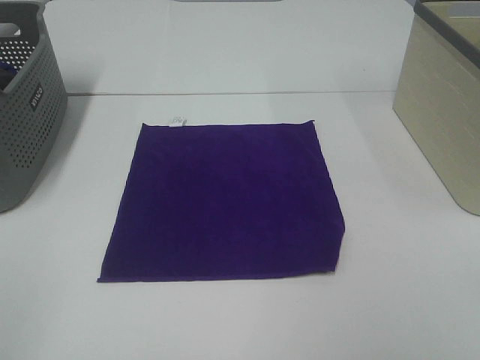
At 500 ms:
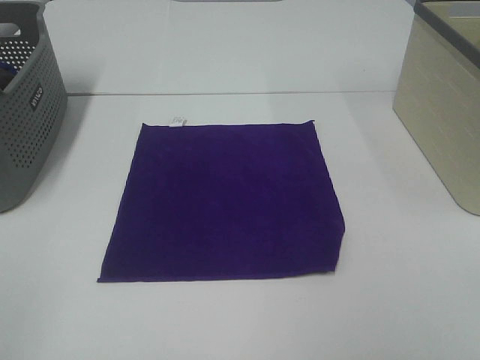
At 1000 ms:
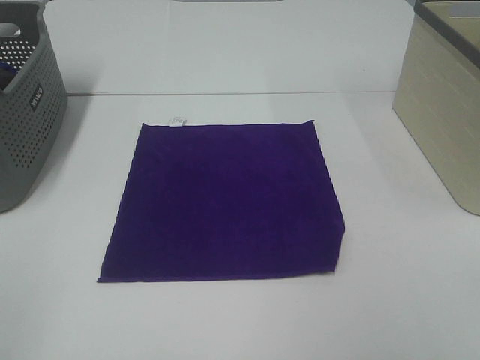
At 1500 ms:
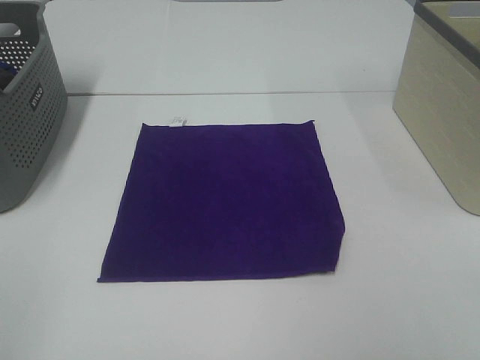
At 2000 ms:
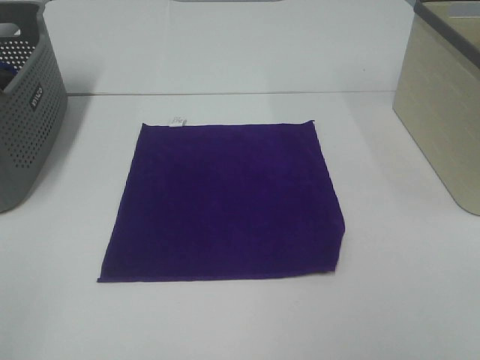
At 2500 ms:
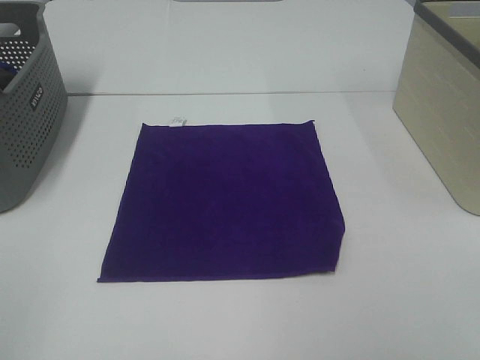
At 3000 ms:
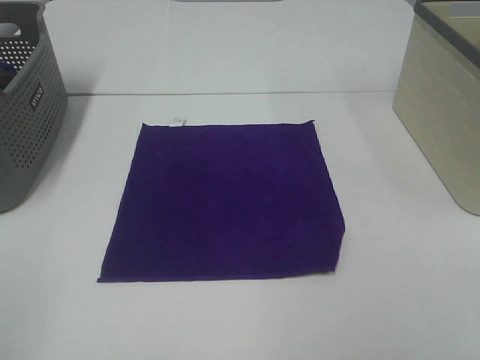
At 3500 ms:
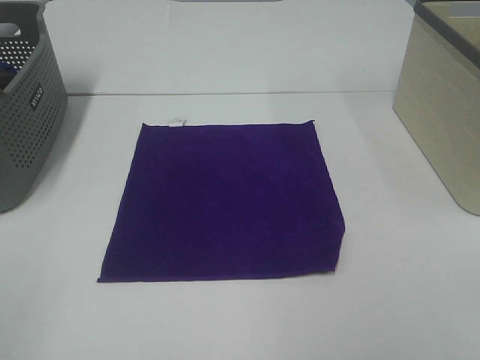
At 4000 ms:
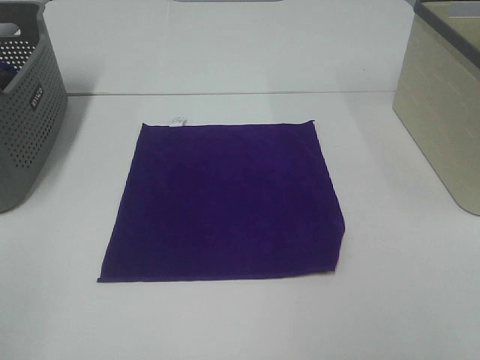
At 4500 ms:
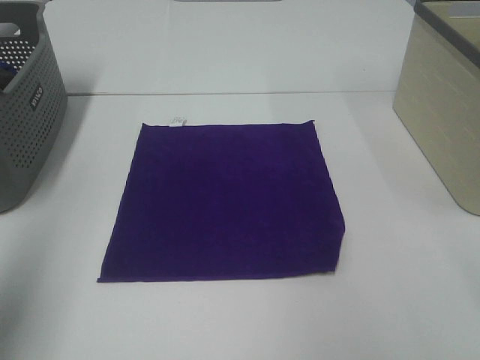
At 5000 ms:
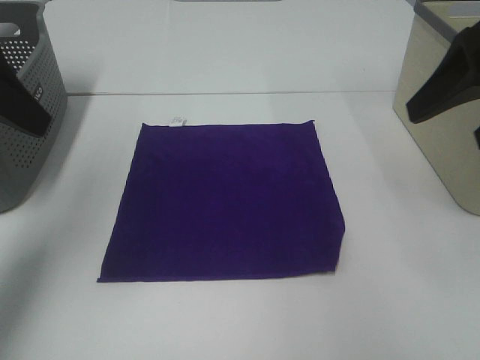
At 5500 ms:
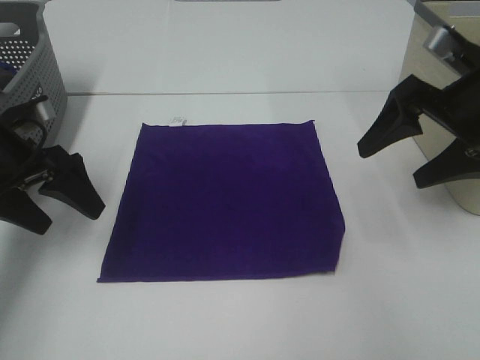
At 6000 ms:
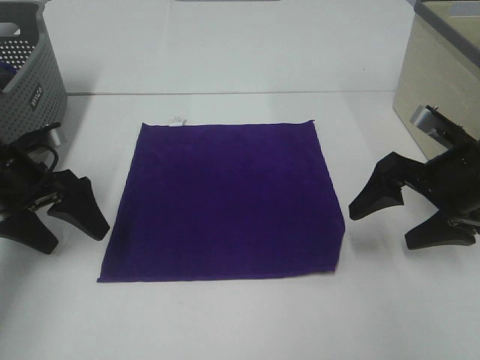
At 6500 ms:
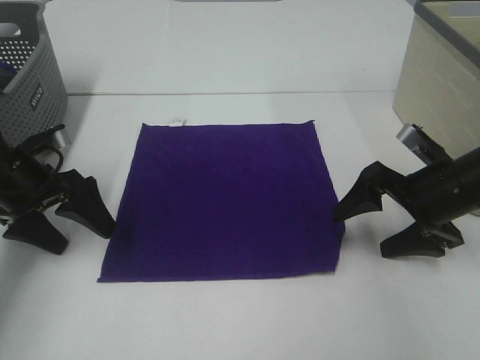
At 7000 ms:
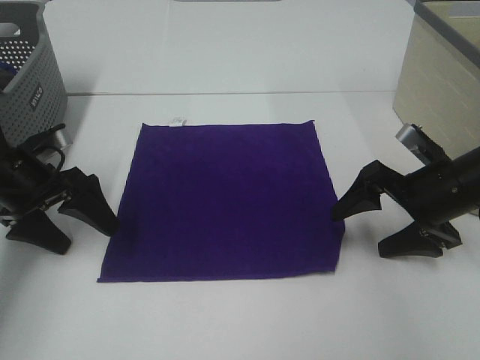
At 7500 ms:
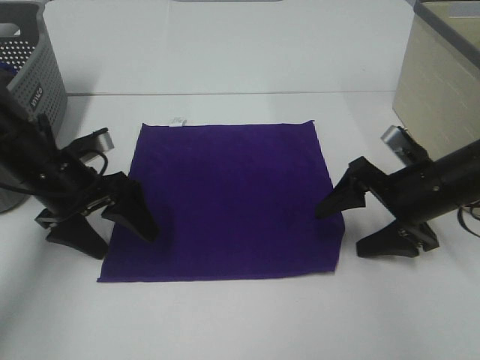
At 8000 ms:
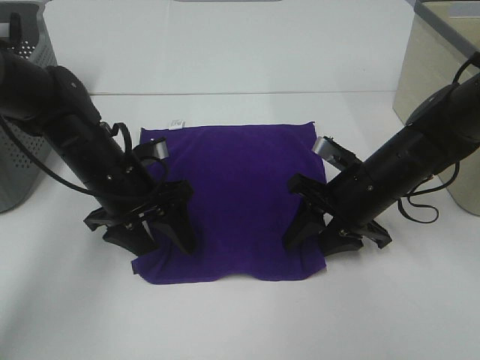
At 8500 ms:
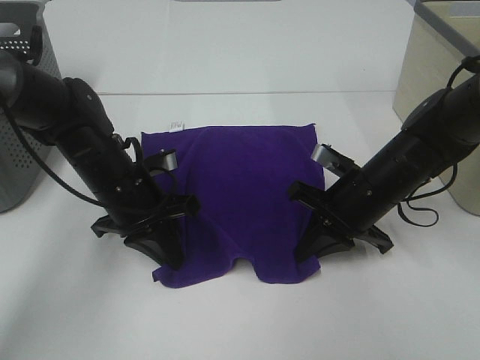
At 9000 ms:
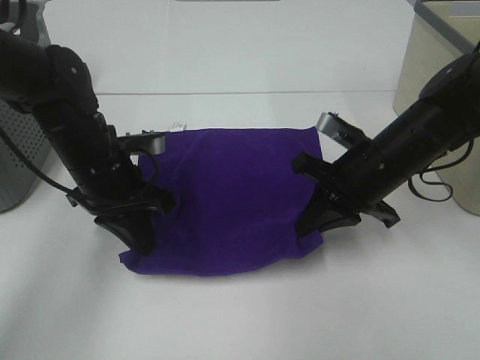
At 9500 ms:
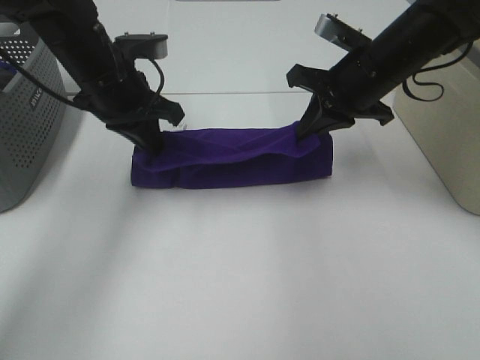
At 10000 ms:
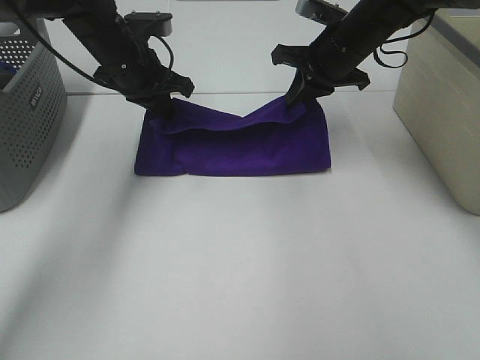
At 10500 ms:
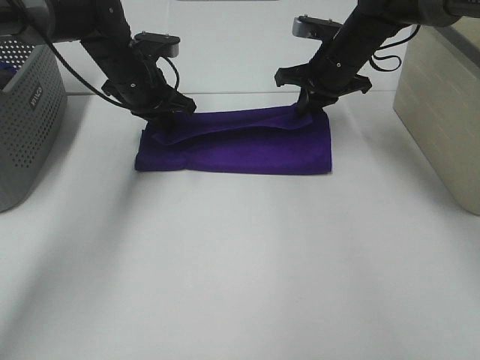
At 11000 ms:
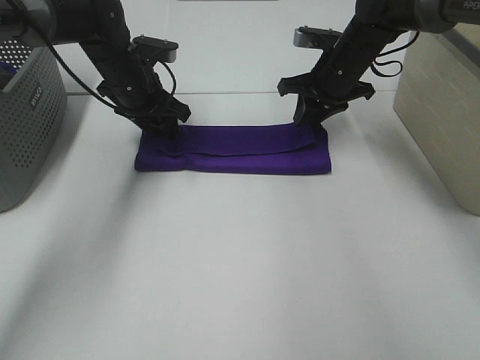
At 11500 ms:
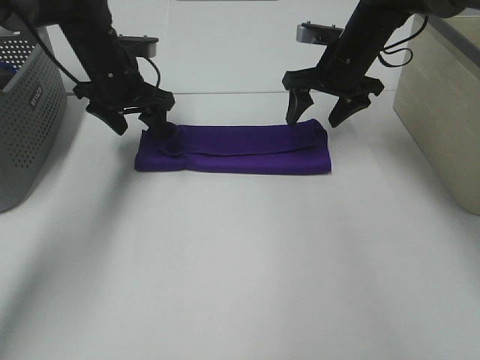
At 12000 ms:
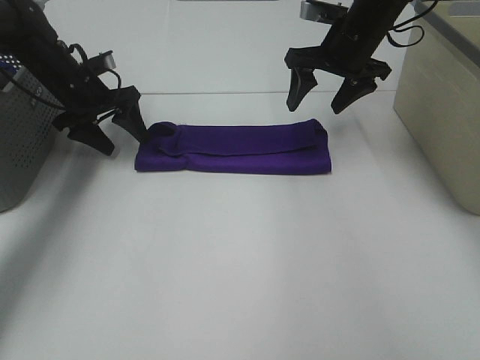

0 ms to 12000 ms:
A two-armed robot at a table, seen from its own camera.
Task of the whole recording: Fold towels.
Step, 0 ms to 8500 ms: Left hand: grab the bottom left corner of purple towel.
Step, 0 ms to 8500 ms: Right hand: grab the bottom right corner of purple towel.
Step, 9000 ms to 11000 ms: Left hand: fold the purple towel up.
Step, 9000 ms to 11000 ms: Right hand: fold the purple towel up.
0 ms to 2000 ms: Neither gripper changes place.
4000 ms to 6000 ms: The two grippers go about 35 cm forward and downward.
6000 ms to 8000 ms: The right gripper shifts about 10 cm to the left and downward, and closes its fingers, while the left gripper shifts some 15 cm to the right, and closes its fingers.
8000 ms to 10000 ms: The grippers both shift forward and upward by about 20 cm. The left gripper closes its fingers. Meanwhile the right gripper closes up.
10000 ms to 12000 ms: The right gripper opens up. The left gripper travels to the left and downward by about 10 cm, and opens its fingers.

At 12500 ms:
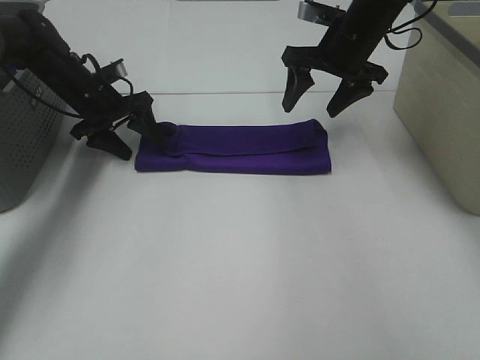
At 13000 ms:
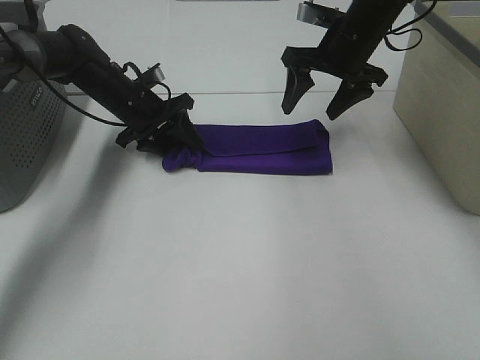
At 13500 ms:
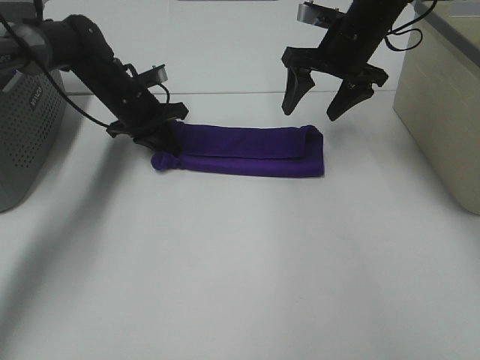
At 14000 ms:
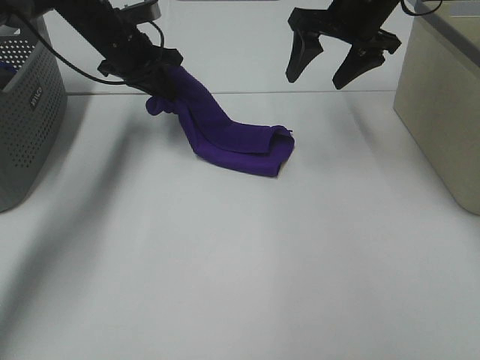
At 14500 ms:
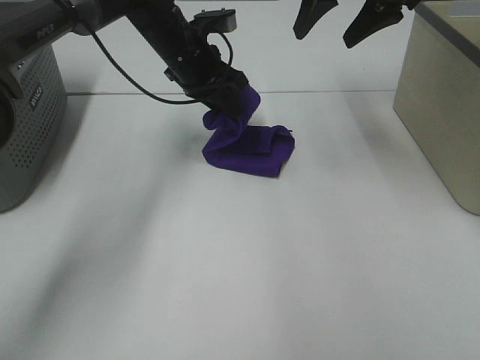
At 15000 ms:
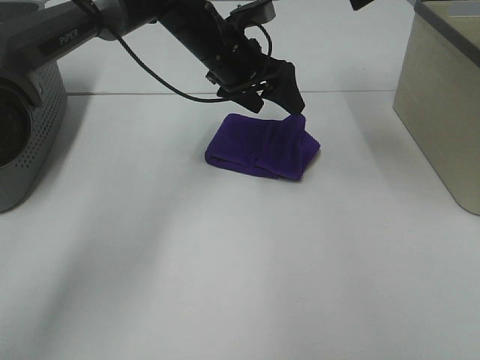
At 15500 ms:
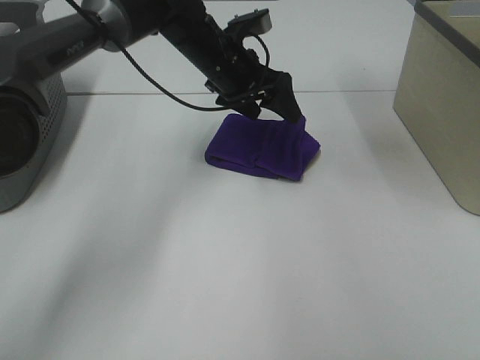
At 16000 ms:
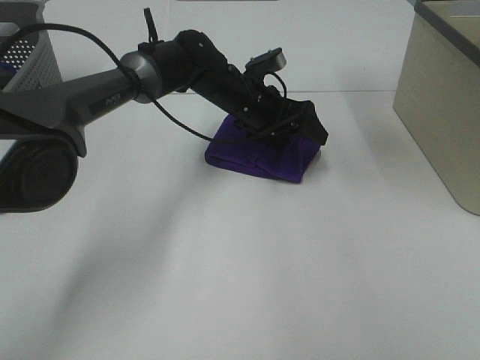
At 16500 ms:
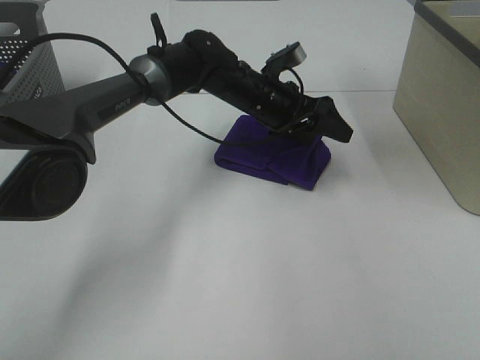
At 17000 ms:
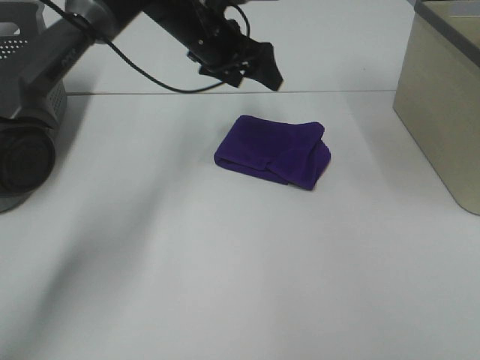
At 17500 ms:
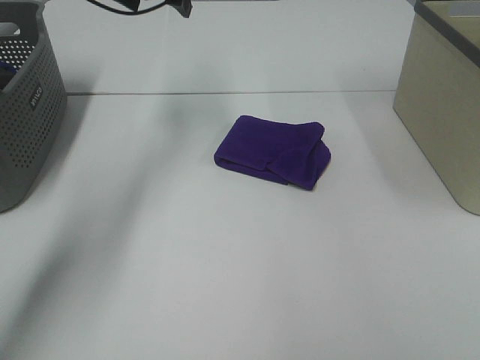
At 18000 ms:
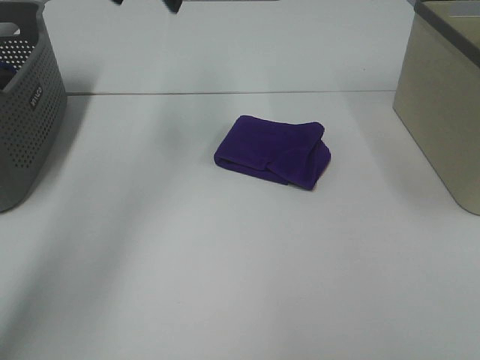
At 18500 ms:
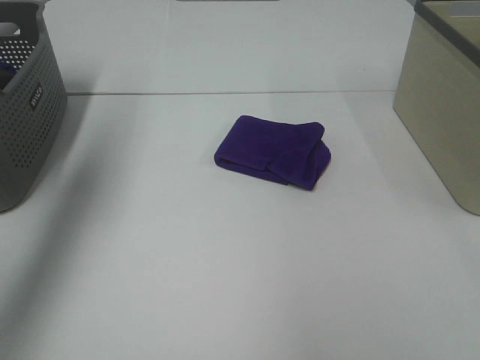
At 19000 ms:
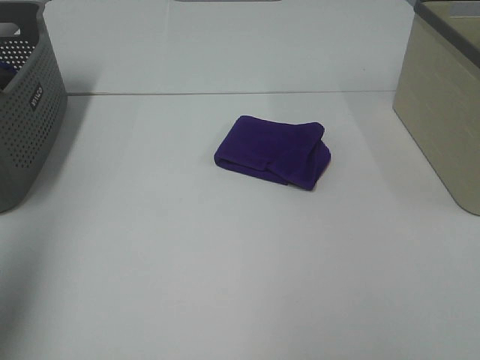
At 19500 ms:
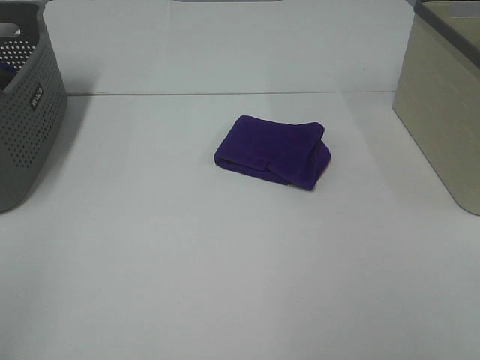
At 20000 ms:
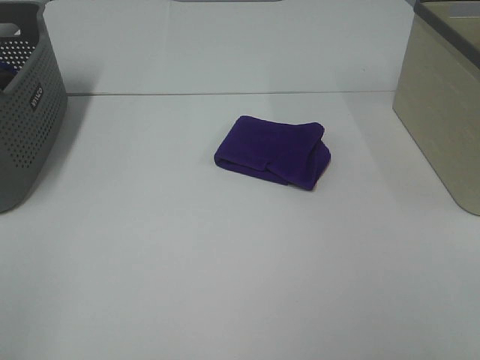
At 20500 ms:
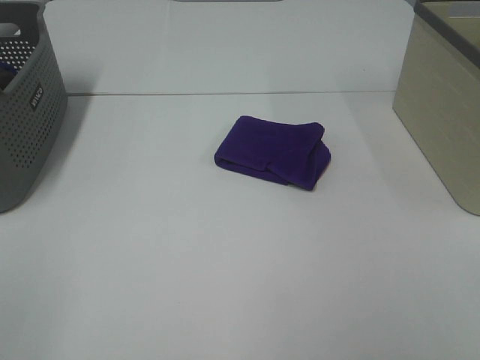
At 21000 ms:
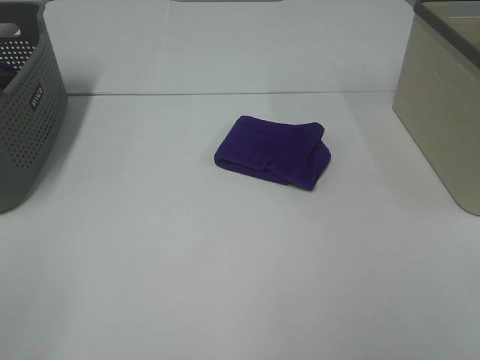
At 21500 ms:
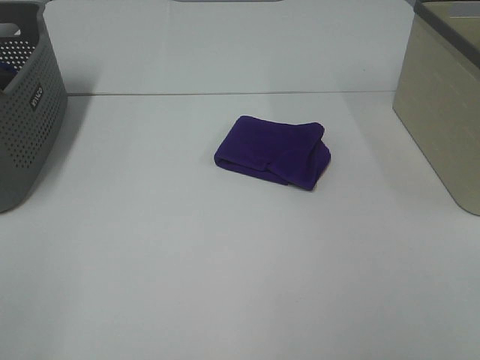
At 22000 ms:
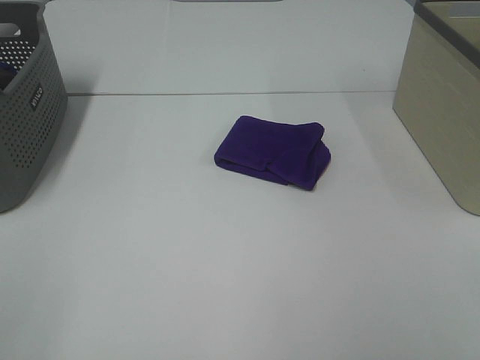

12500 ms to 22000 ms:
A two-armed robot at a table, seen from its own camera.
Task of the whole recording: Fold towels.
Step, 12500 ms to 14500 ms: Left hand: fold the purple towel from left to right.
Step, 15000 ms to 16000 ms: Left hand: adjust the purple towel.
12500 ms to 14500 ms: The left gripper heads to the right and upward, covering some 15 cm, and closes up, while the right gripper travels upward by about 10 cm.
14500 ms to 16500 ms: The right gripper shifts roughly 5 cm upward. Meanwhile the left gripper shifts about 10 cm to the right and downward, and opens up.
16500 ms to 18000 ms: The left gripper goes roughly 25 cm upward and to the left; the right gripper goes roughly 10 cm backward and upward.
18000 ms to 20000 ms: The right gripper is displaced backward and downward by some 35 cm. The left gripper heads backward, covering about 50 cm.

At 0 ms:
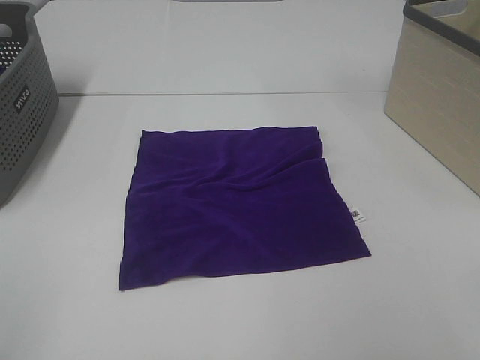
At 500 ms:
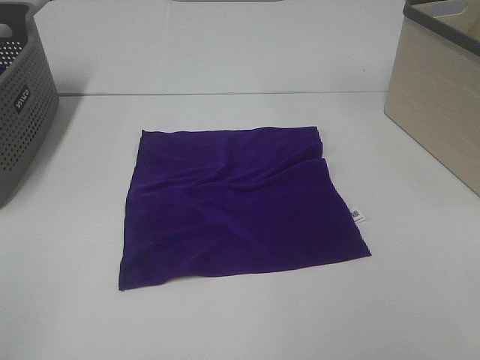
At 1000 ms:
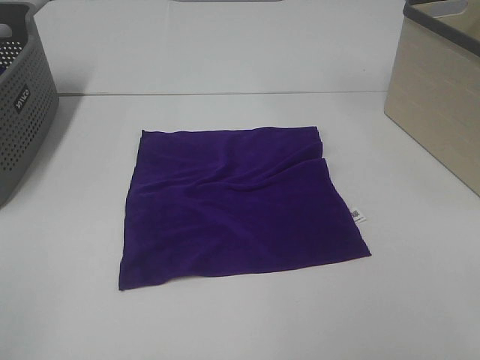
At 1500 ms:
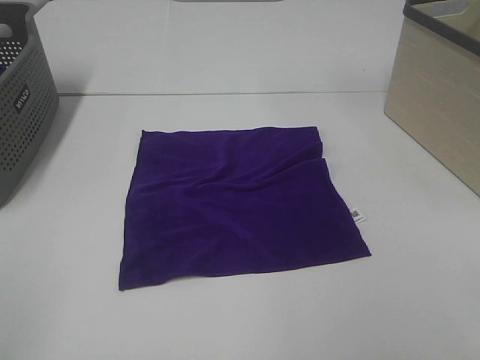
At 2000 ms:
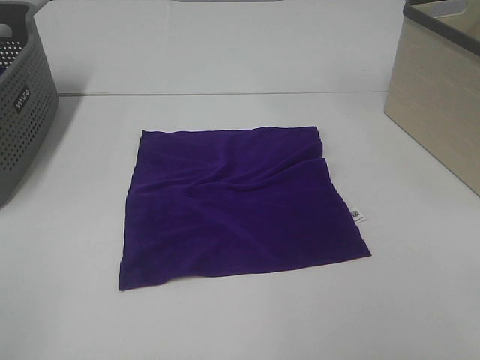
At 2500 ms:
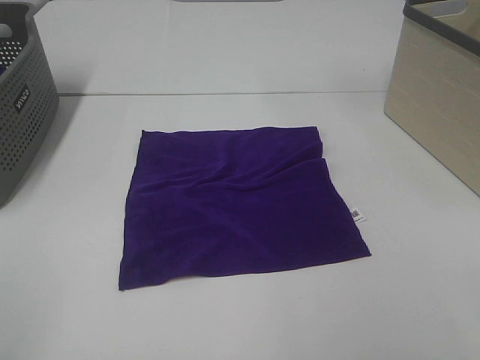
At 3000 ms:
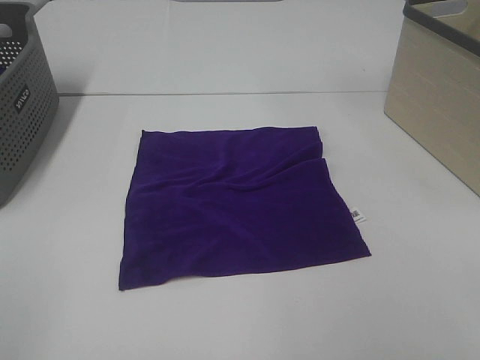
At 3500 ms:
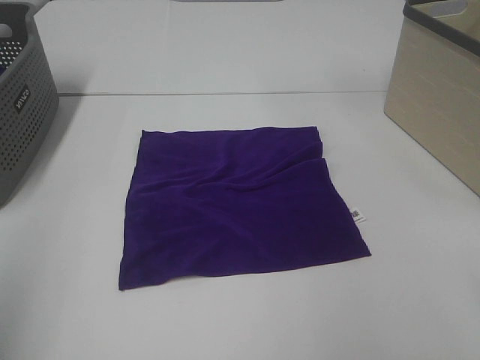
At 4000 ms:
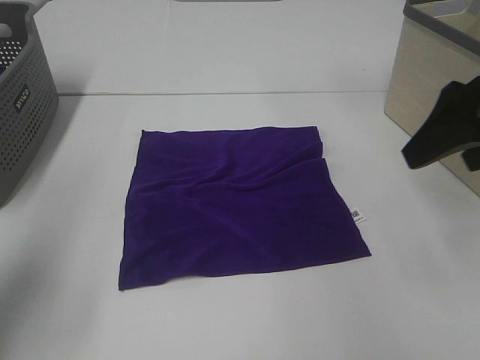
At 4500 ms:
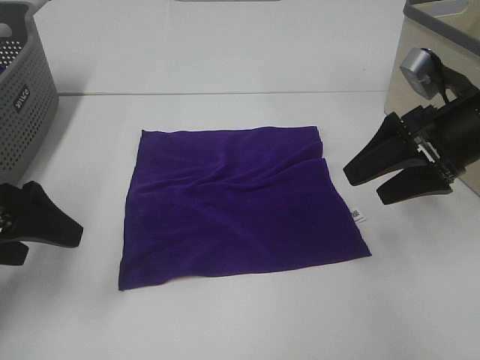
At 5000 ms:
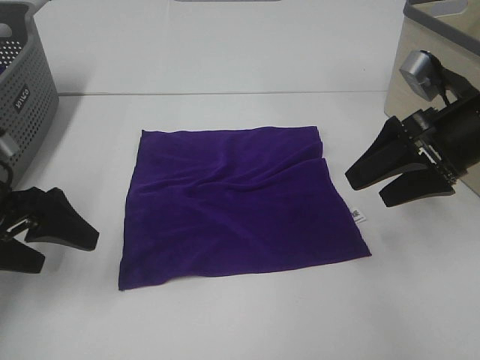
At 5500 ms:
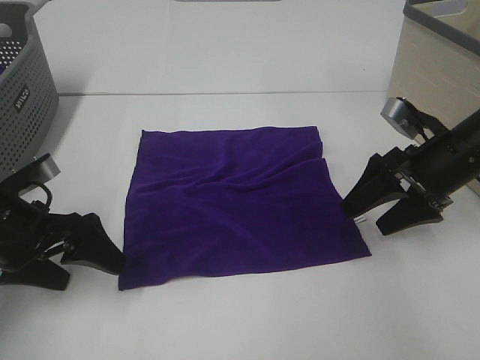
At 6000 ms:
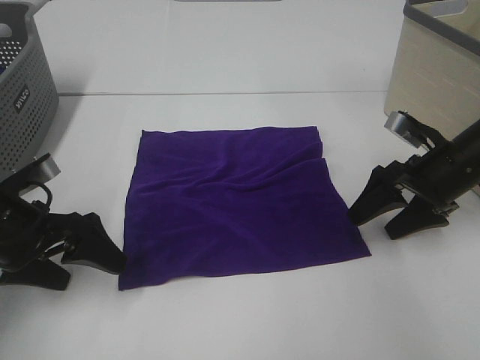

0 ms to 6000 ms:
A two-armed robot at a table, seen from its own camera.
Task of the whole recording: Fold towels.
0 ms to 2000 ms: Both grippers stay about where they are.
2000 ms to 4000 ms: The two grippers go approximately 20 cm forward.
4000 ms to 6000 ms: The grippers both shift downward and forward by some 20 cm.
